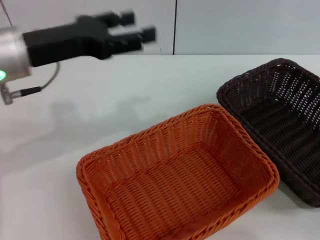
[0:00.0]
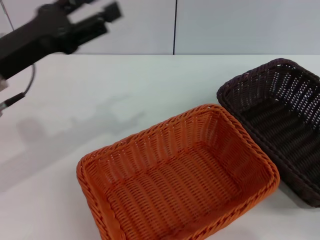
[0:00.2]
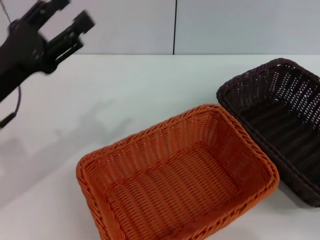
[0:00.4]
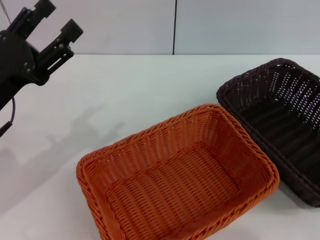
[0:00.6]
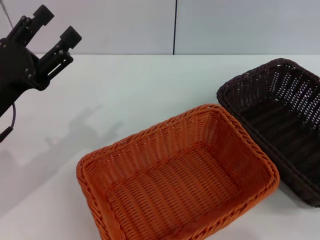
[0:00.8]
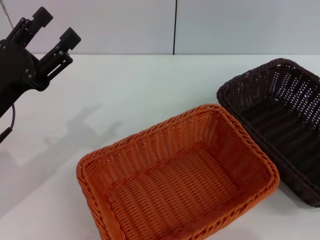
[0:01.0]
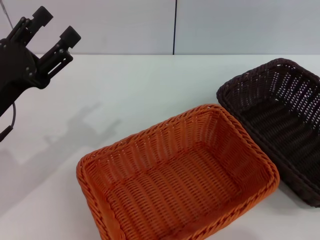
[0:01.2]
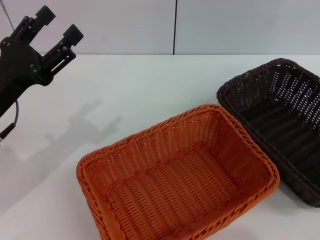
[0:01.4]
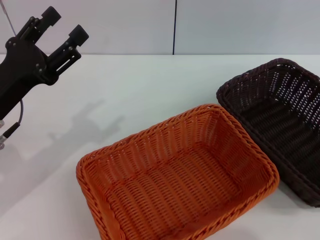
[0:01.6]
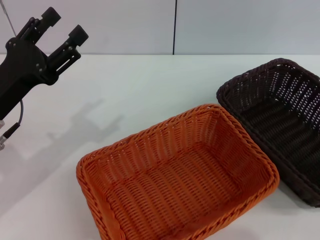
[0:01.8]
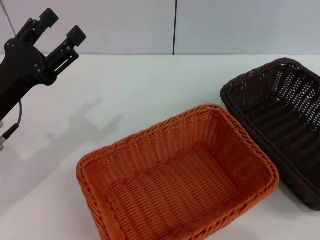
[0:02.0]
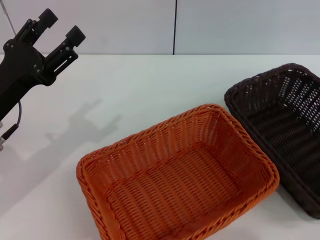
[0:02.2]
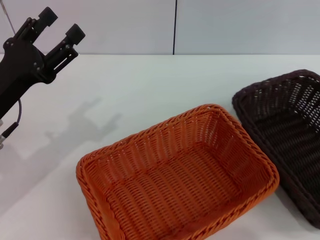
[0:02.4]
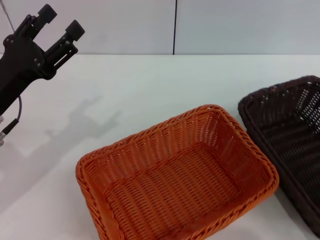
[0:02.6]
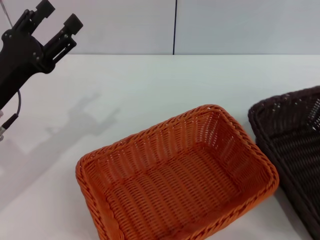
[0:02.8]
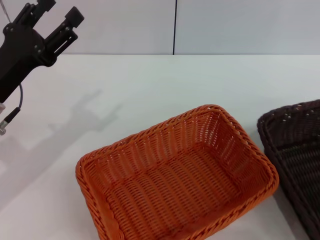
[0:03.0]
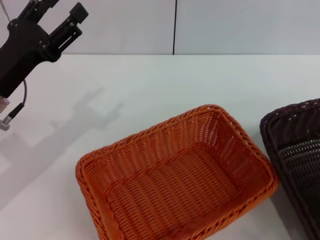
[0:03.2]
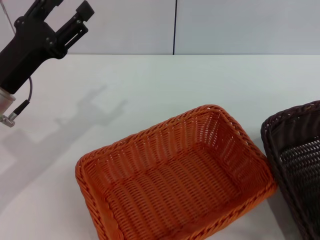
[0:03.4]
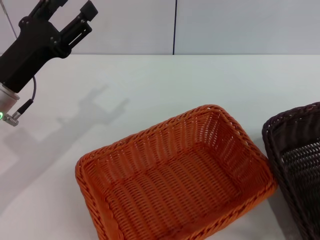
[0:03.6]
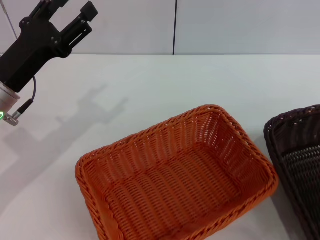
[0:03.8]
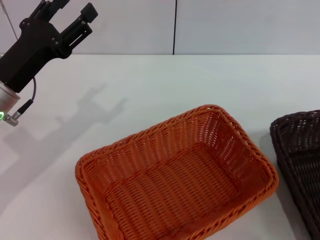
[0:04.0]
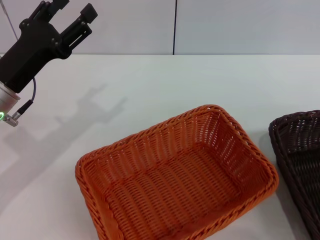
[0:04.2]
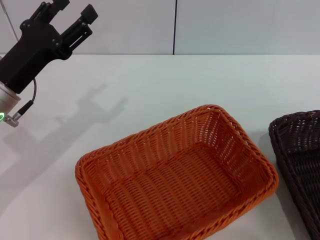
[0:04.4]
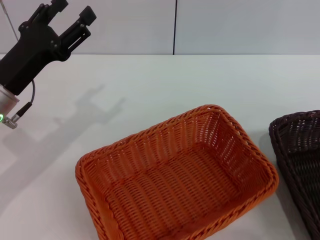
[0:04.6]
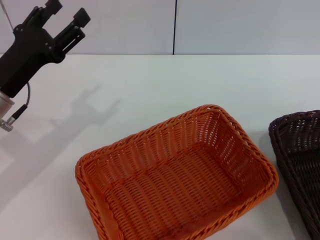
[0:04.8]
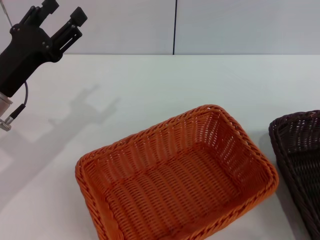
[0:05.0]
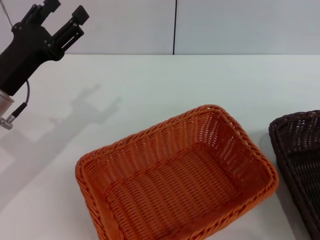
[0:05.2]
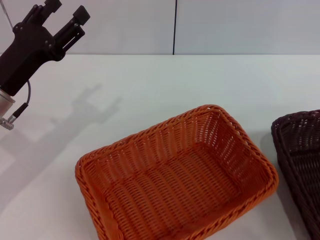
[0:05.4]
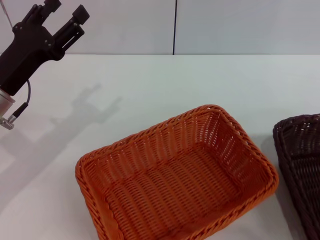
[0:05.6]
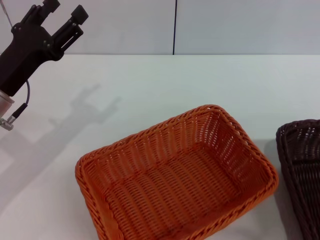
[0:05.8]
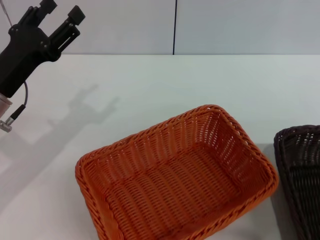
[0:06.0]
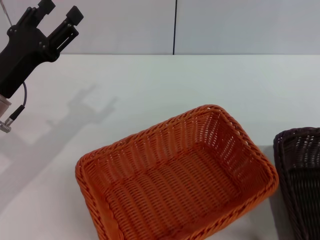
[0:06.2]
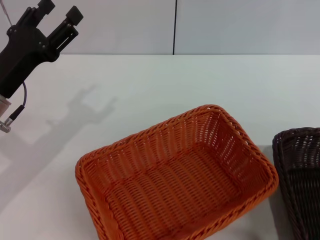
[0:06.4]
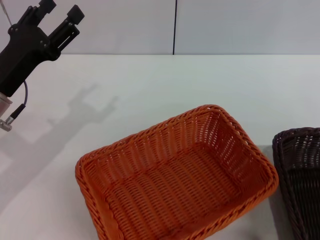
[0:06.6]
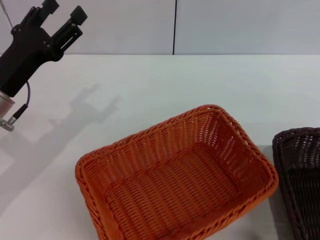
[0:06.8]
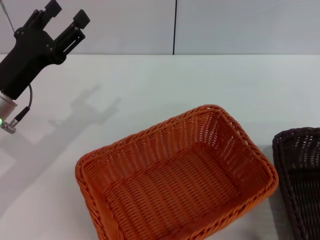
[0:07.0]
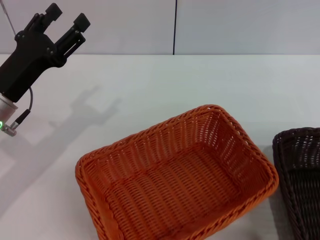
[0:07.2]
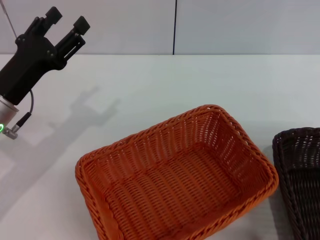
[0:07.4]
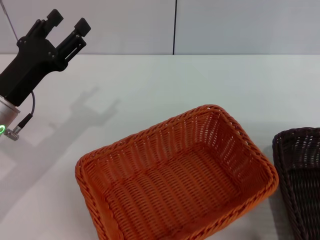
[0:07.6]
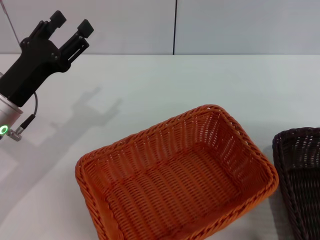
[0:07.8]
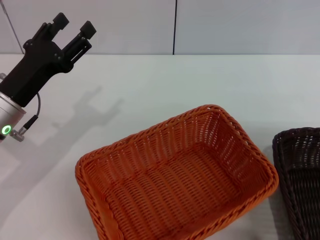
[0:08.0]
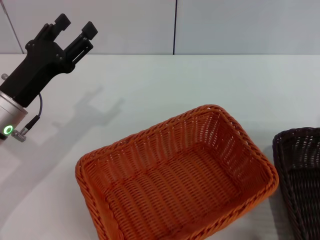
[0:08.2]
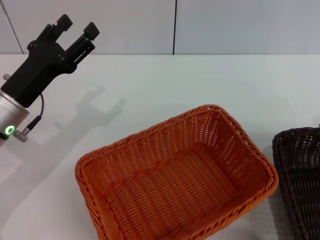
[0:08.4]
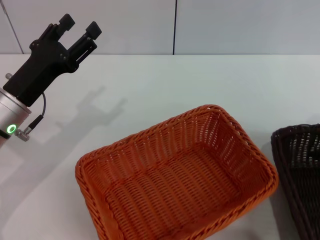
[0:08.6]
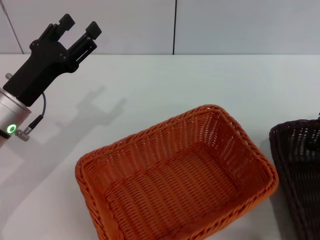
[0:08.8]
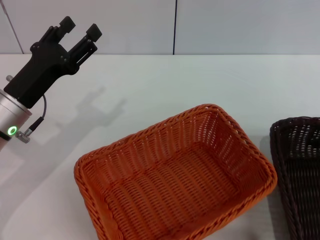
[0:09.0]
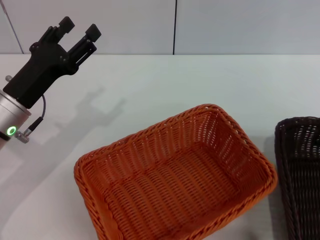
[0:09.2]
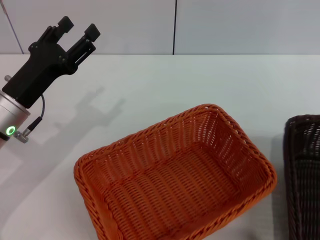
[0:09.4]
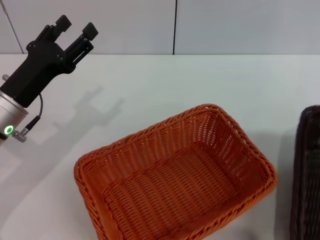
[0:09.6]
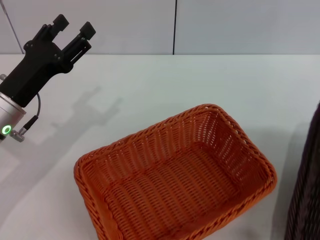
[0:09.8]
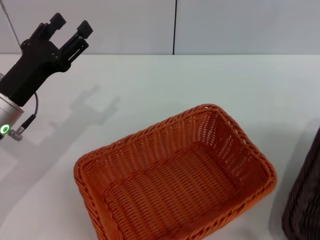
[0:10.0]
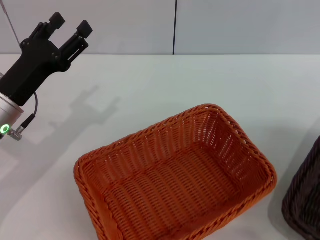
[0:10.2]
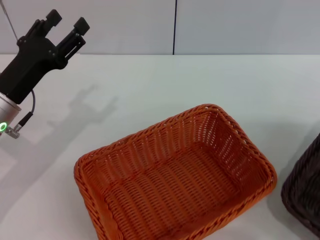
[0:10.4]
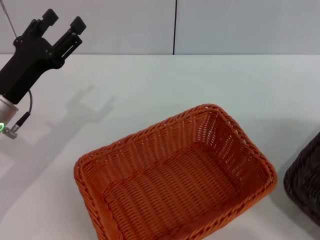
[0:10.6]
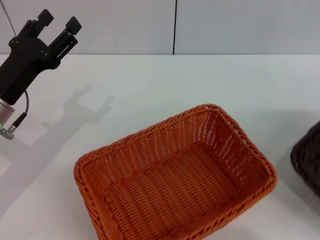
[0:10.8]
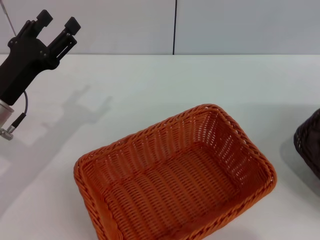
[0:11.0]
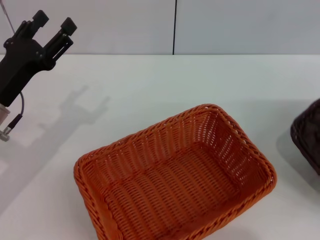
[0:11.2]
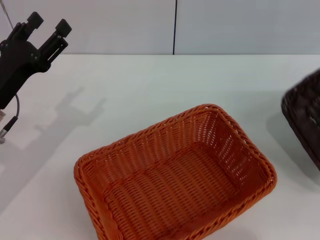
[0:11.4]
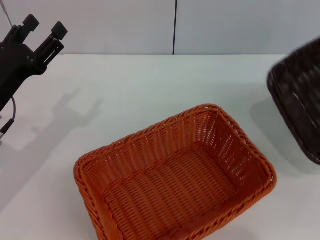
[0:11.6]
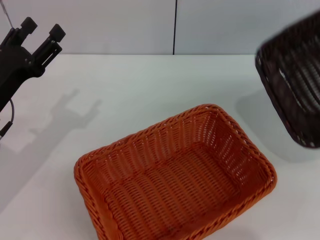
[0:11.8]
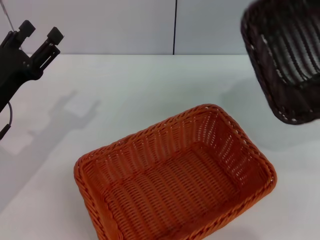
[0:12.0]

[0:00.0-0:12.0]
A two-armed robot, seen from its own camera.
Step, 0:00.0 to 0:10.8: Pick up the dark basket with the right gripper.
0:00.0 to 0:01.6: The left gripper is displaced downward by about 10 cm. Meanwhile the right gripper moves upward, about 15 cm.
0:01.6 to 0:03.0: The right gripper is displaced backward by about 5 cm.
0:03.0 to 0:04.4: The grippers make only small movements.
0:04.4 to 0:06.0: The right gripper heads to the left, covering approximately 5 cm.
0:07.6 to 0:09.0: The right gripper heads downward, covering approximately 5 cm, and closes.
0:09.0 to 0:10.4: The right gripper goes about 15 cm to the right, upward and backward, and closes up.

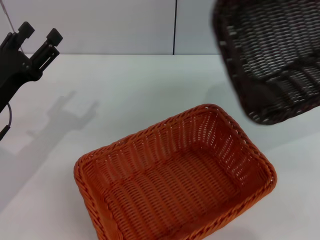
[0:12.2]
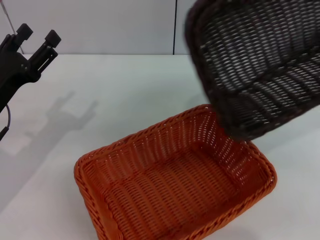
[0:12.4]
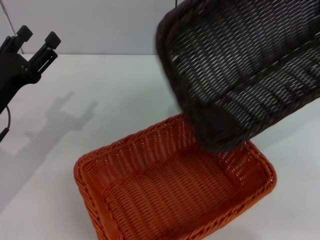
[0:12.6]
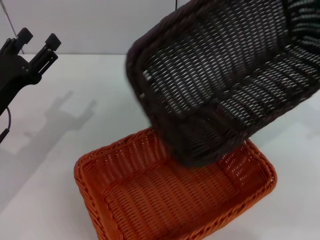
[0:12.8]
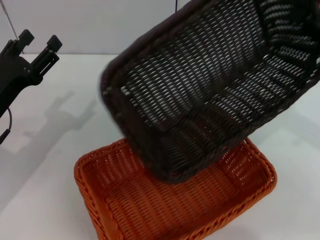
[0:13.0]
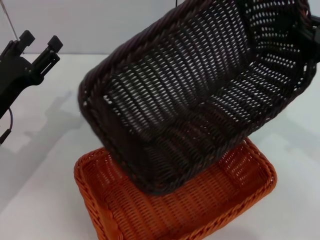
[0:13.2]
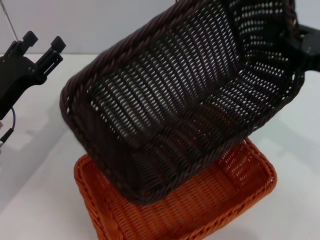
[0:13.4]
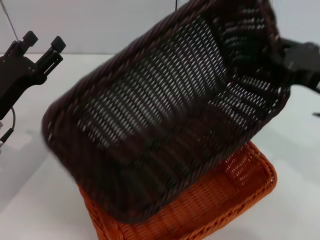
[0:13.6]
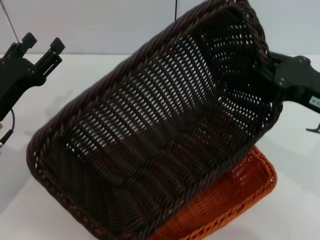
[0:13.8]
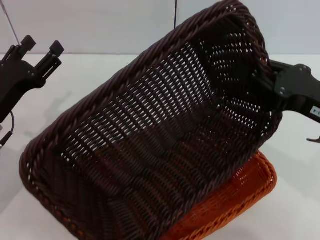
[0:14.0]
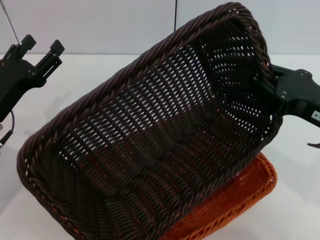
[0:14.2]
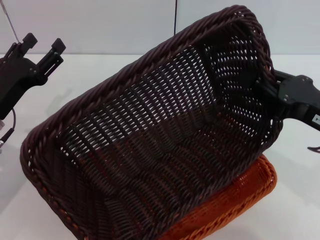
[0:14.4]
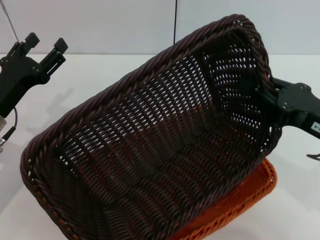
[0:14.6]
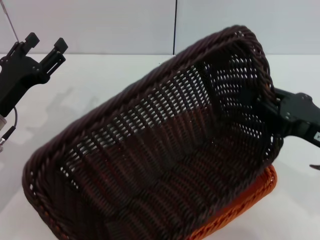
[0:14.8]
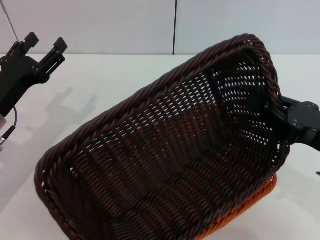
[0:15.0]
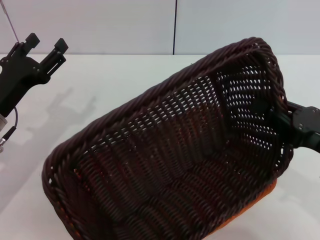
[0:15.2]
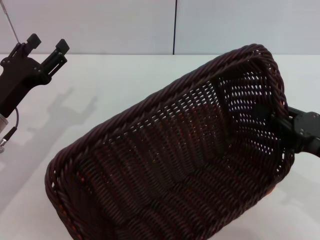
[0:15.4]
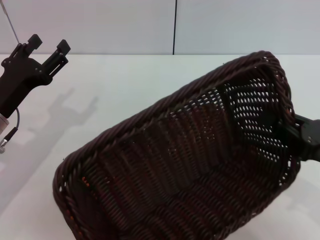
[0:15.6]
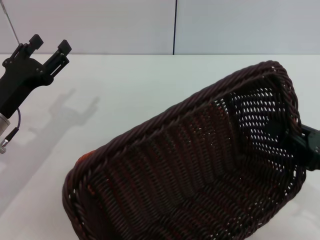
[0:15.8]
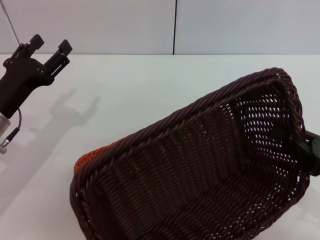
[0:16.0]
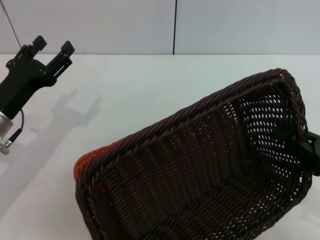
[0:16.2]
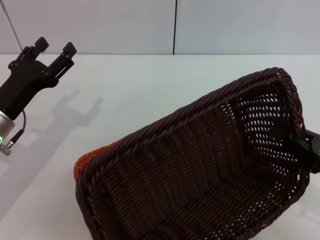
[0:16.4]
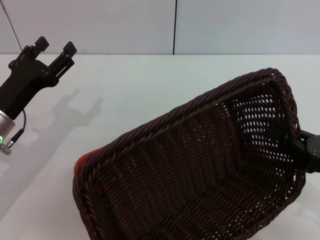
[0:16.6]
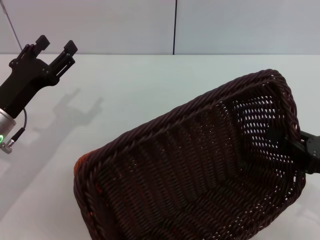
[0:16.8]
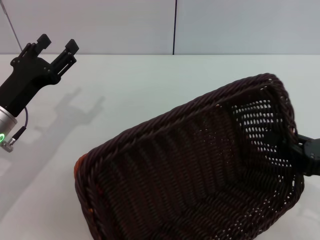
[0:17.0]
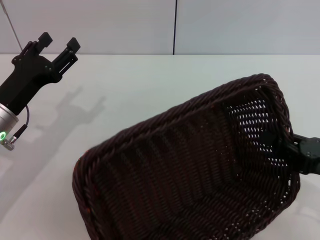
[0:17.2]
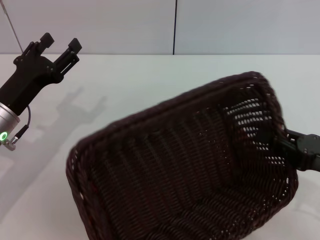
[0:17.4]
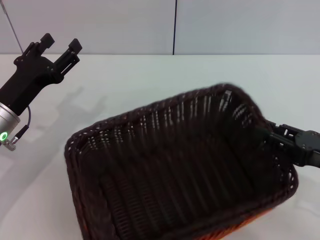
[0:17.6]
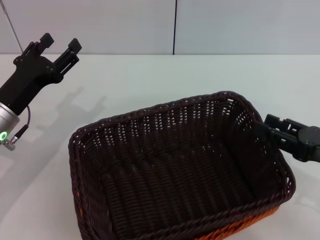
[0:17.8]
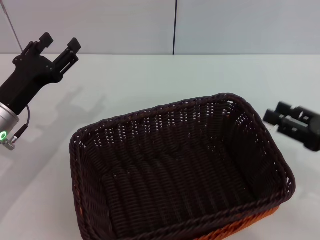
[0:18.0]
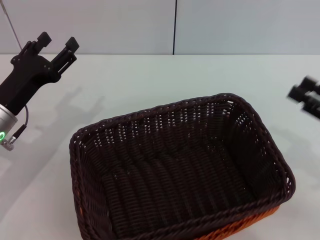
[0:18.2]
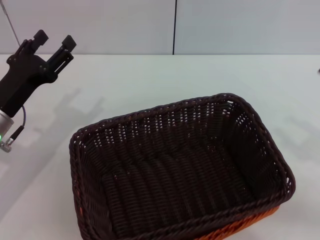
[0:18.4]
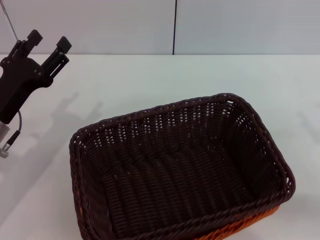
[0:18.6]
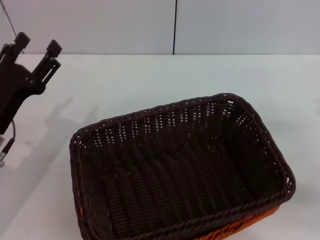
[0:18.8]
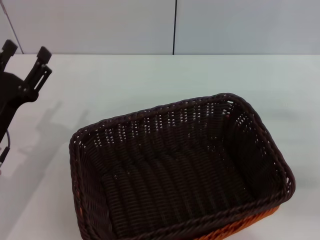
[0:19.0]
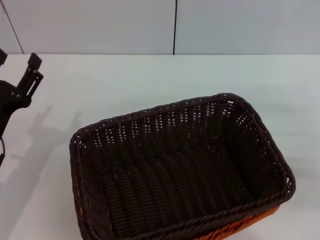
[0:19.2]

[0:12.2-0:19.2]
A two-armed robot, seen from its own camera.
Step, 0:12.2 to 0:17.8: Place the dark basket on the light basket with the right gripper.
0:12.2 to 0:13.6: The right gripper heads to the left and downward, covering roughly 20 cm.
0:13.6 to 0:15.0: The right gripper is displaced backward by about 5 cm.
0:15.0 to 0:16.4: The right gripper ends up roughly 5 cm from where it was.
0:16.4 to 0:17.8: The grippers stay close to where they were, moving slightly.
0:17.8 to 0:19.2: The left gripper travels backward by approximately 5 cm, while the right gripper moves forward and to the right, about 10 cm.
